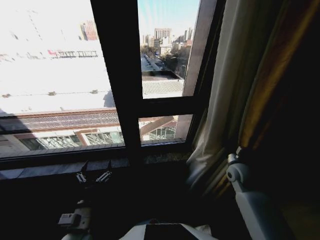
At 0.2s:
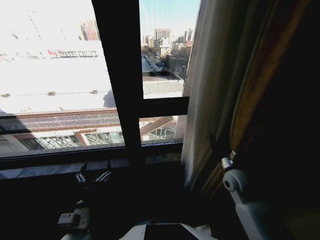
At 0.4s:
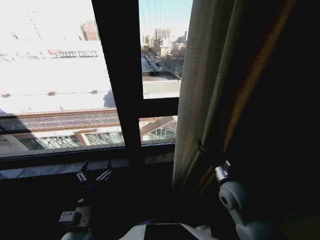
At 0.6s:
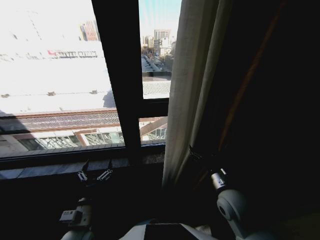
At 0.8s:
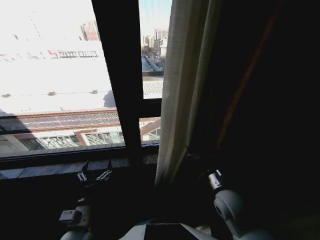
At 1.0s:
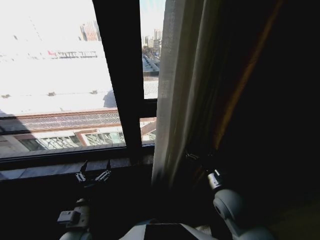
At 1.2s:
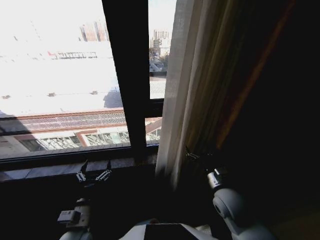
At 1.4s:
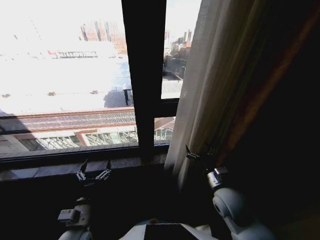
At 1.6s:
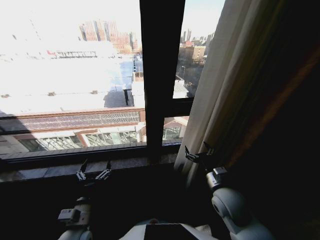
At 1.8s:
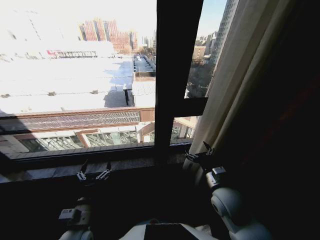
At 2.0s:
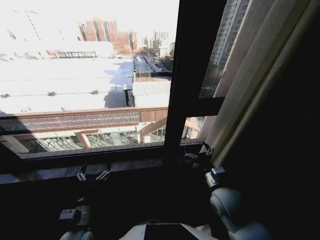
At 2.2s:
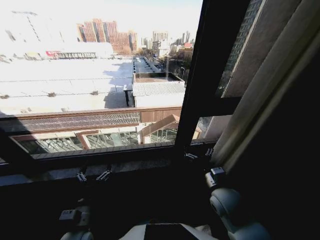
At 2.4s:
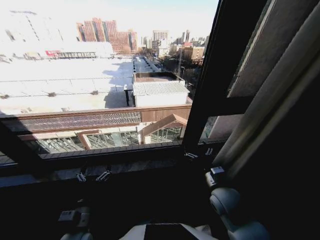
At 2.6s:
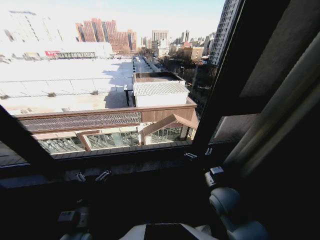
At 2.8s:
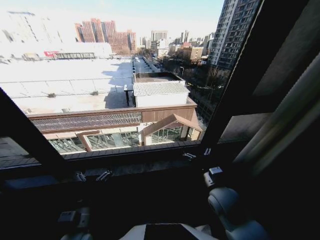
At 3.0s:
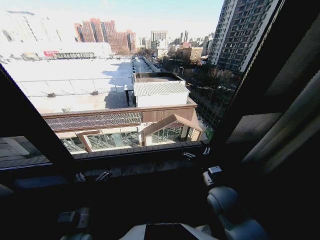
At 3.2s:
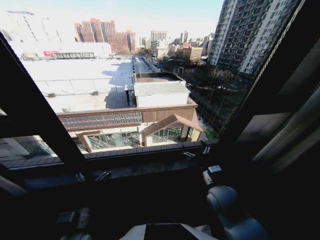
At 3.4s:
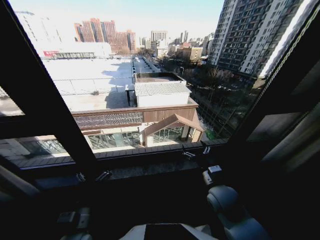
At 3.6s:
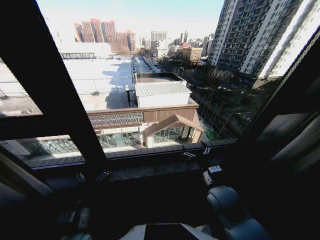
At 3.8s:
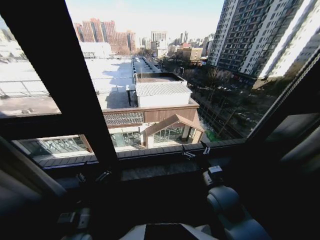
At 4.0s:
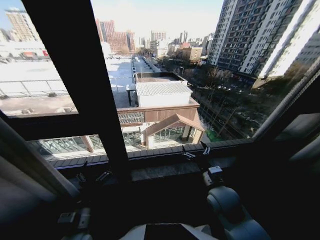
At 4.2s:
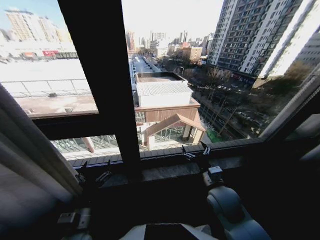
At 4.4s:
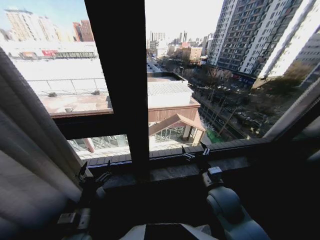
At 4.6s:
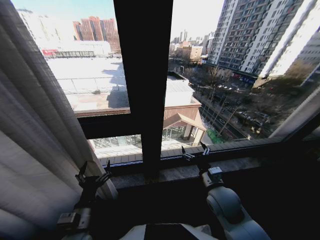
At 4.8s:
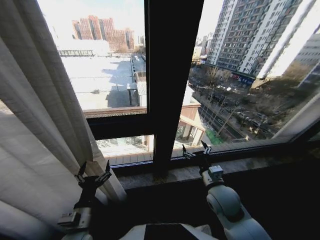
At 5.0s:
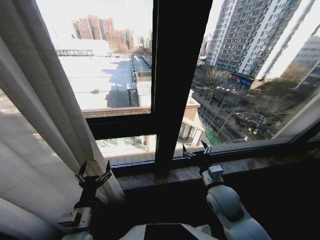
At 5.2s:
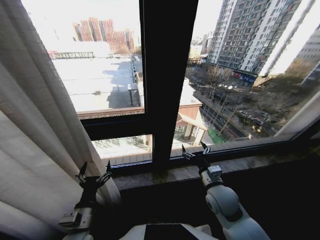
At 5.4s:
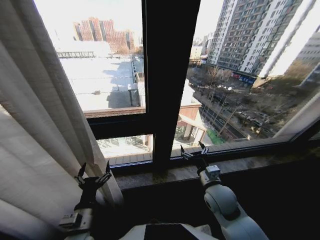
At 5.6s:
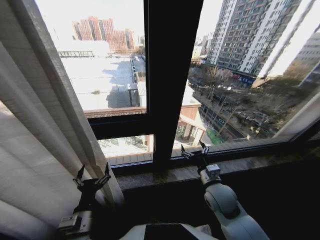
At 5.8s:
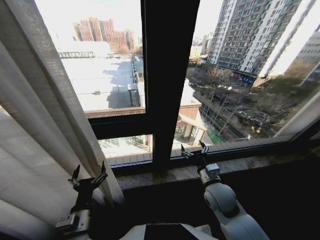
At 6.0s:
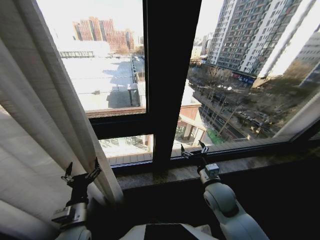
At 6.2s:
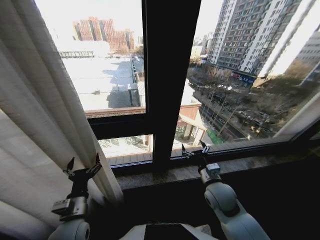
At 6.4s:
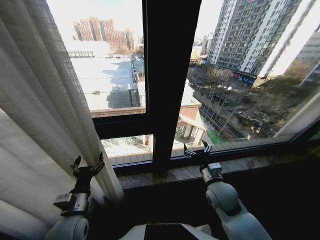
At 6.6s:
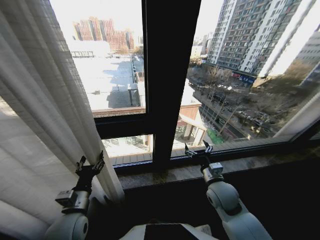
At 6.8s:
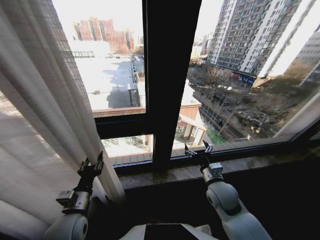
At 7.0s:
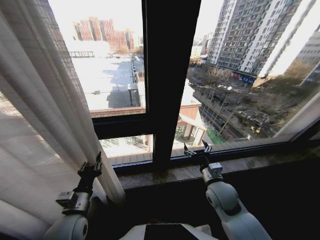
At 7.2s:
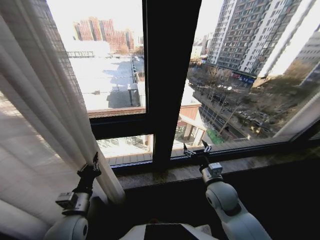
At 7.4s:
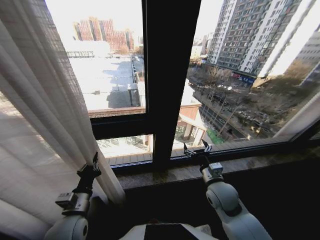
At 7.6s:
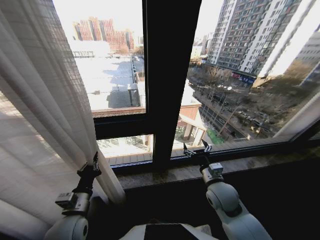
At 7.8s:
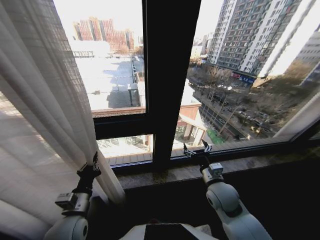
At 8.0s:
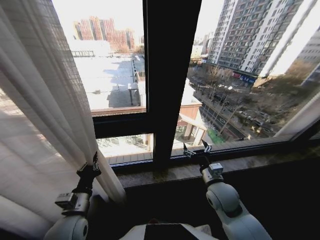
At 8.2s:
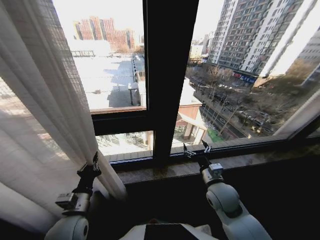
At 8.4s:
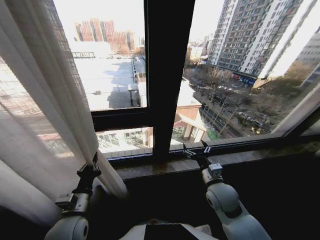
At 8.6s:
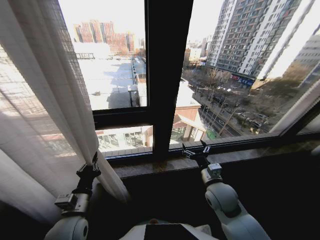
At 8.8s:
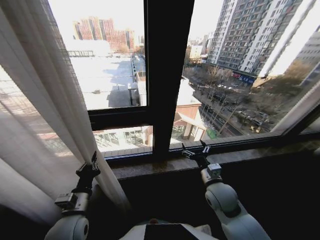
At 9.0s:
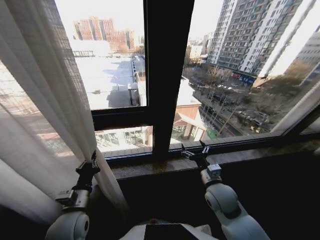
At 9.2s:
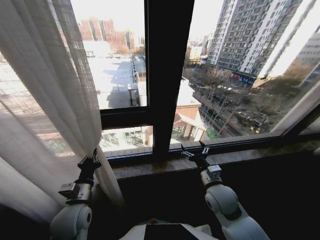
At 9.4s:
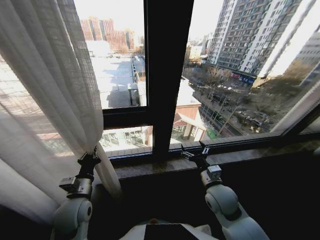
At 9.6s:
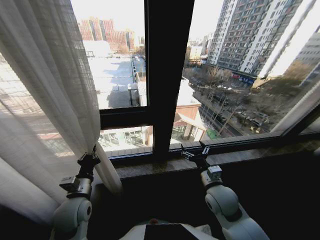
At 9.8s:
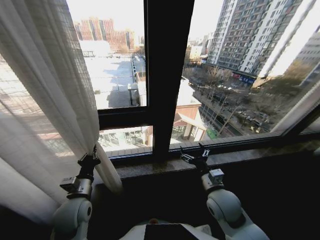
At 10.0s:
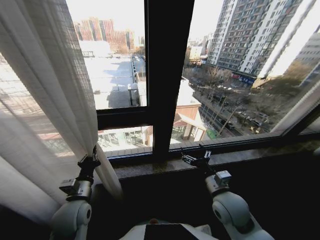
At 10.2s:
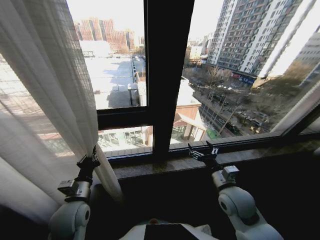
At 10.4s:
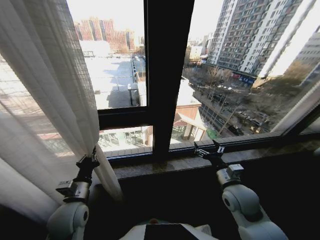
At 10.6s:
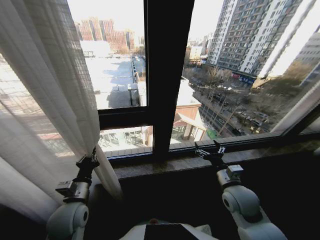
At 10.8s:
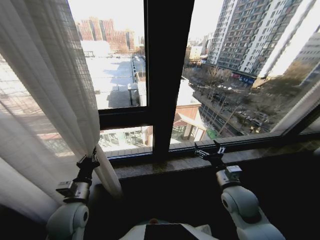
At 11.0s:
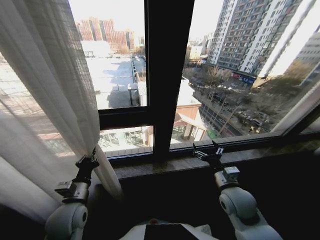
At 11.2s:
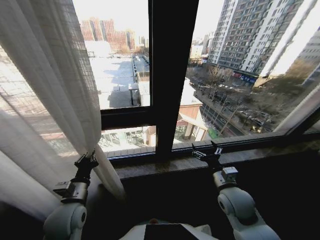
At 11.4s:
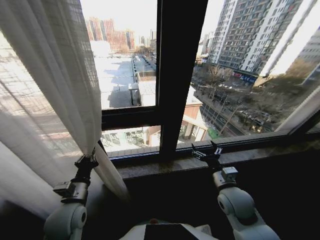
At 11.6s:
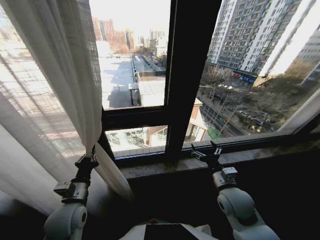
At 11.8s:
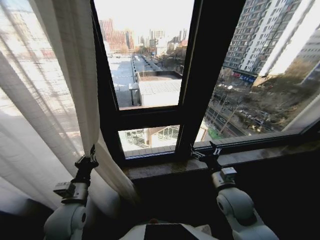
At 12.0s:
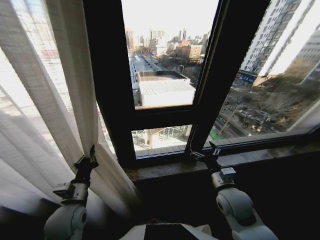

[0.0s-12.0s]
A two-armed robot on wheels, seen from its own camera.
Task of the whole recording: Open the curtains by pulling them apart, changing their state from closed to fully open.
0.0s to 1.6s: The right gripper travels to the left and backward by about 15 cm, and opens.
6.0s to 7.6s: The left gripper closes up.
9.0s to 10.4s: The right gripper moves to the right, approximately 5 cm.

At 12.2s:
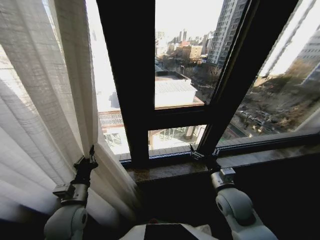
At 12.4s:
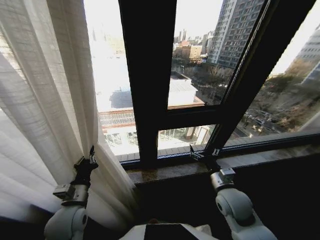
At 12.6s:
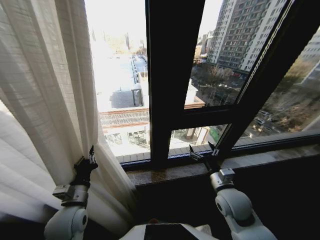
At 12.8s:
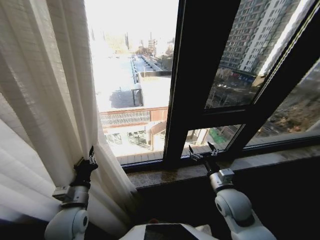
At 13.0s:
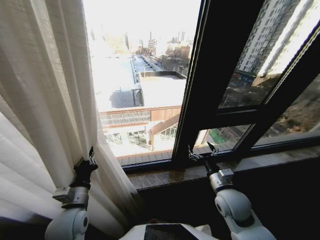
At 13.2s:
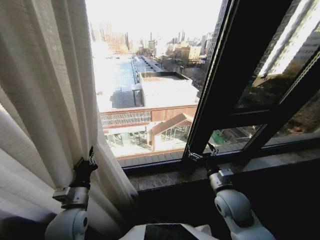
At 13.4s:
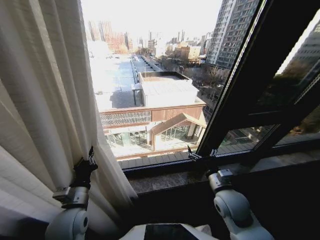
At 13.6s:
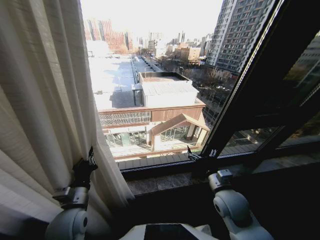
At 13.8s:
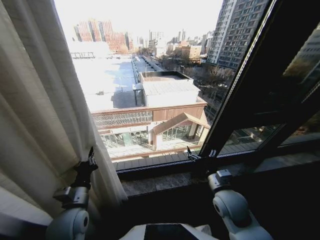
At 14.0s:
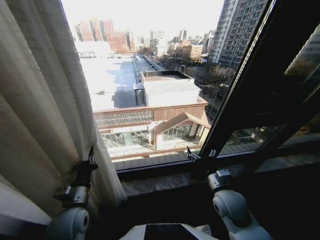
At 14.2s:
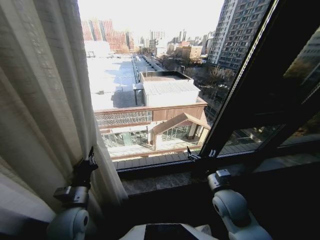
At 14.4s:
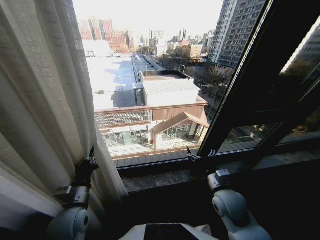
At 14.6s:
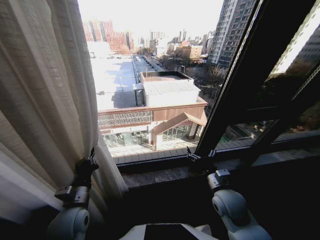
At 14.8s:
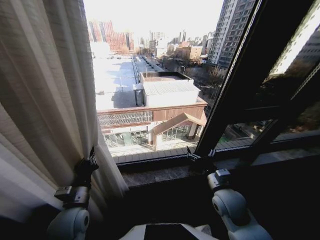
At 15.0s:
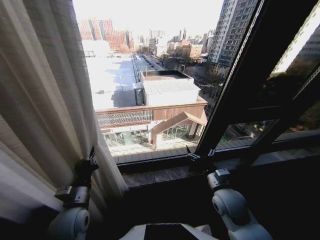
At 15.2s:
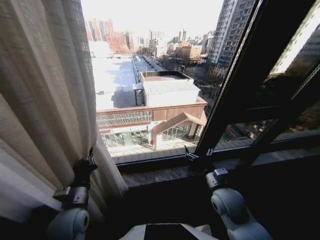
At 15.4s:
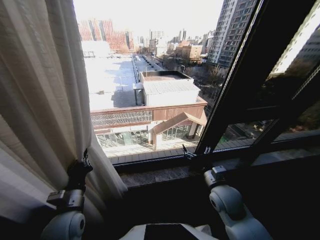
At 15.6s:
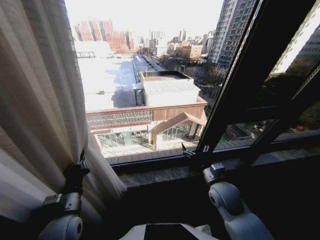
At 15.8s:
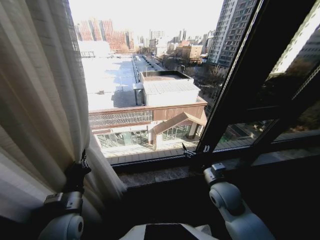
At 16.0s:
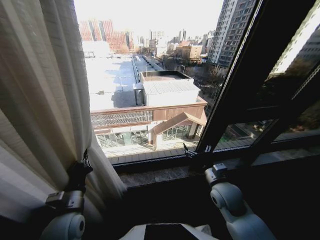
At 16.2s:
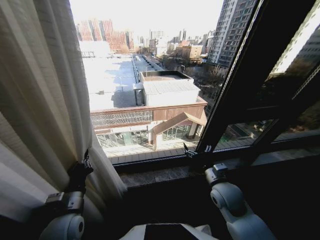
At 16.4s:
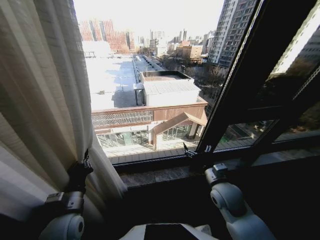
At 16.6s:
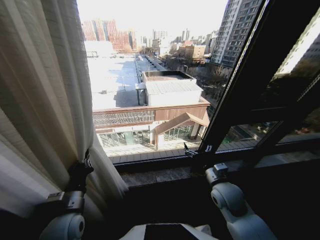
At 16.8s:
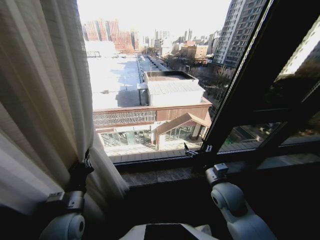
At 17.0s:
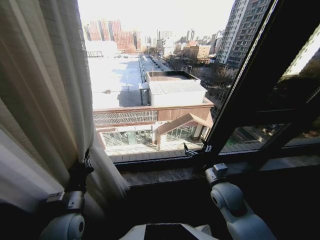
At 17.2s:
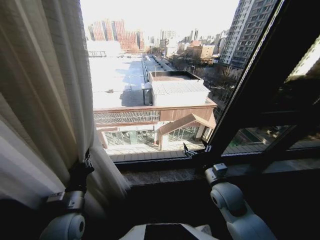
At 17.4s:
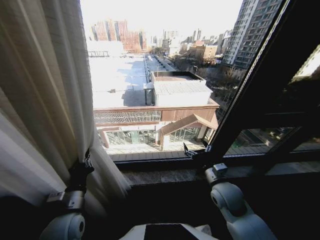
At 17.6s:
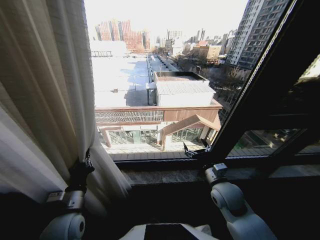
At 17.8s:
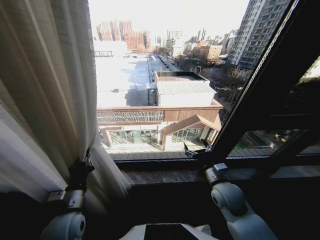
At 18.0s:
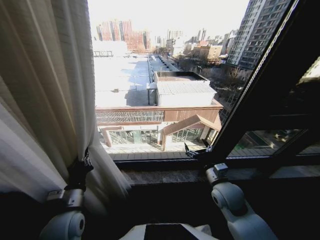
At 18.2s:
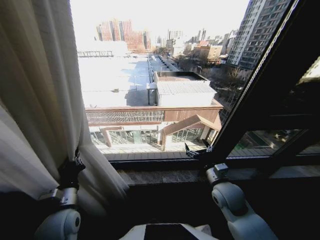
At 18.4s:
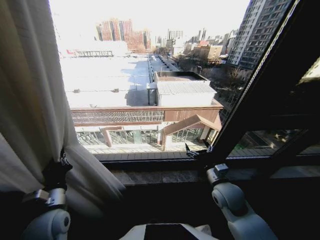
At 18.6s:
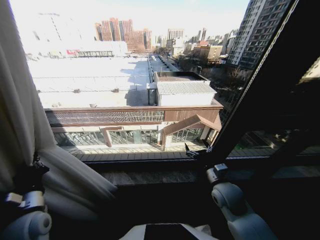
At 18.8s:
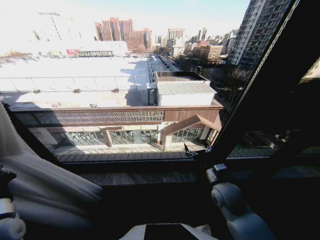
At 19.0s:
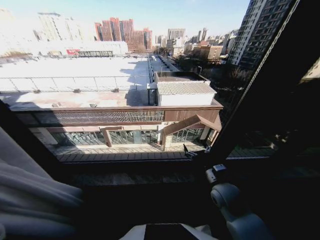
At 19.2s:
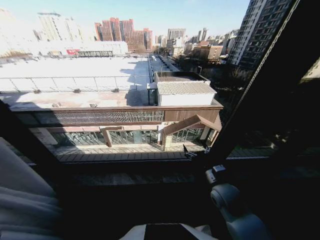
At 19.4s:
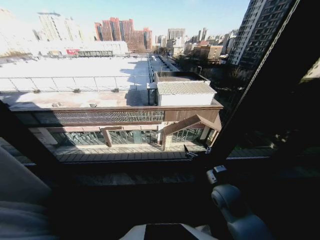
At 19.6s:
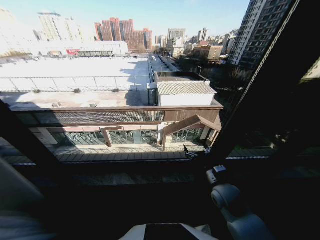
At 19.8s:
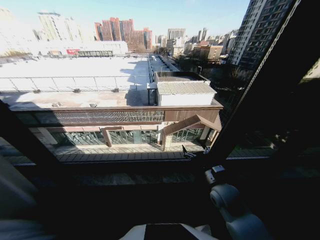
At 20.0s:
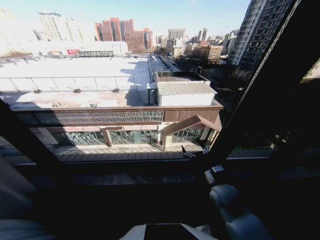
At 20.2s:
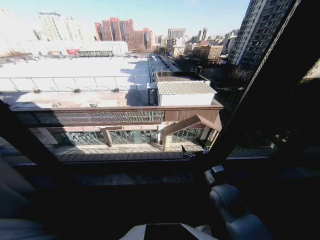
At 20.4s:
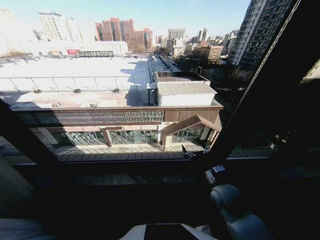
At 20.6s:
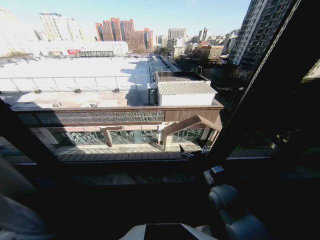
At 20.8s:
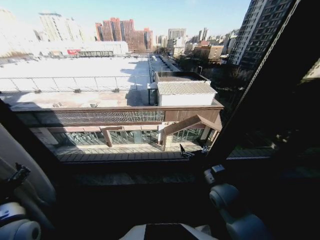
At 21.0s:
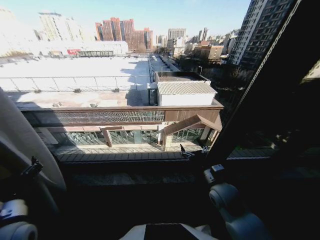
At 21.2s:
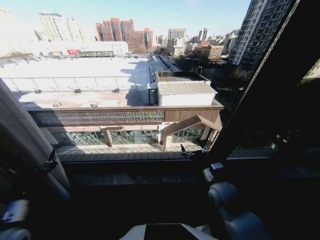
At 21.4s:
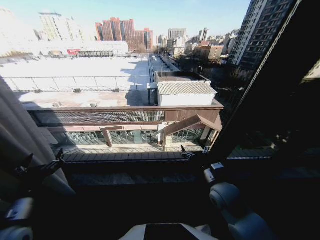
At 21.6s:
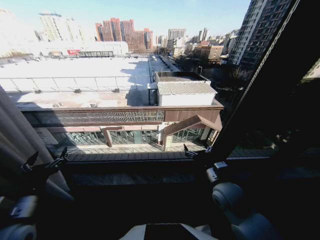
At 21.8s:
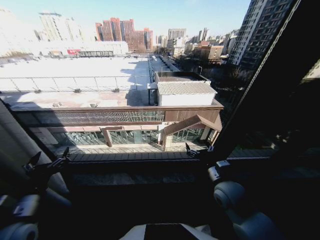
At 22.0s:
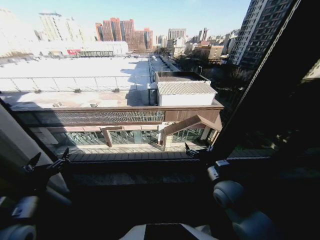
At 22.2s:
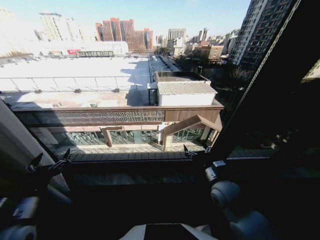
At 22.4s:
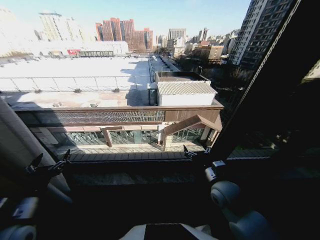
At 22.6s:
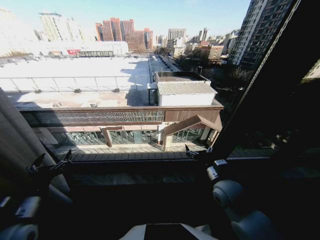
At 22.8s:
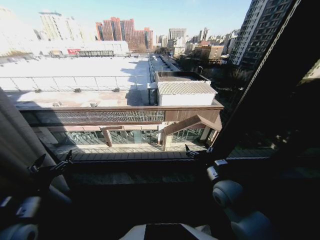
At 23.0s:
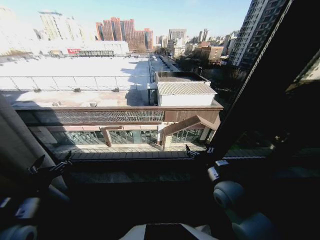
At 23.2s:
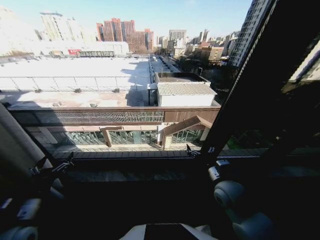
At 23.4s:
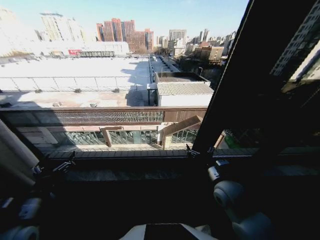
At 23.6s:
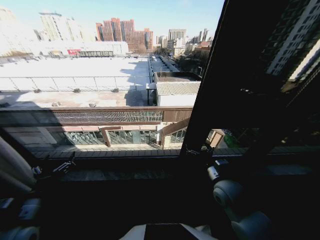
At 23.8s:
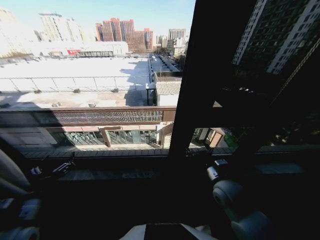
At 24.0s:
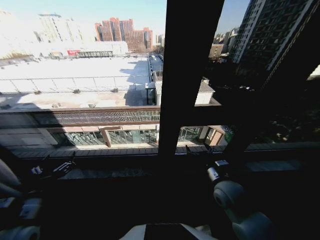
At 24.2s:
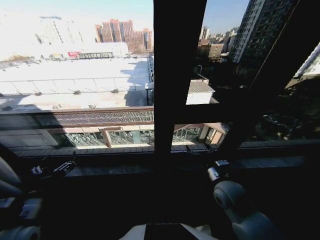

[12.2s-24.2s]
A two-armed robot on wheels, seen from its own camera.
Task of the whole recording: Open the curtains by pulling them apart, changing their state from closed to fully open.
18.2s to 19.8s: The left gripper shifts roughly 30 cm to the left.
19.8s to 21.2s: The left gripper shifts approximately 20 cm to the right, and opens up.
21.2s to 22.6s: The grippers make only small movements.
